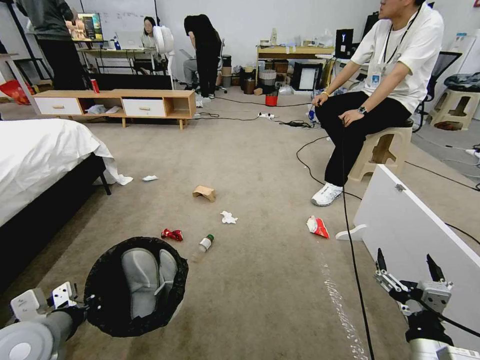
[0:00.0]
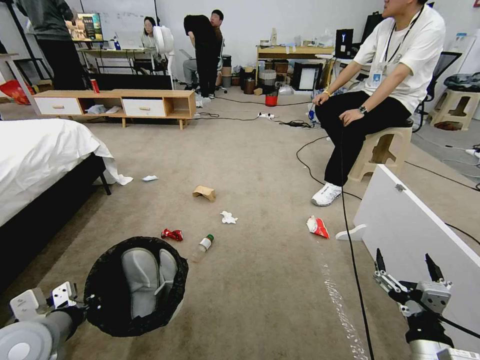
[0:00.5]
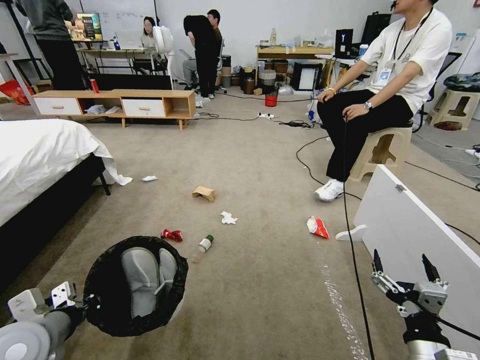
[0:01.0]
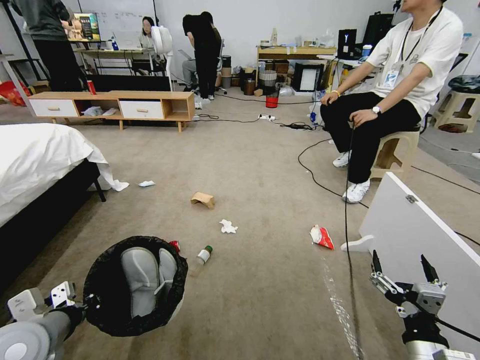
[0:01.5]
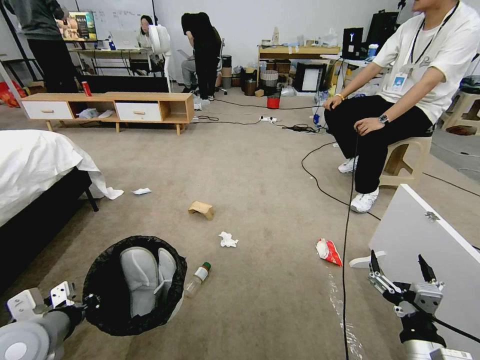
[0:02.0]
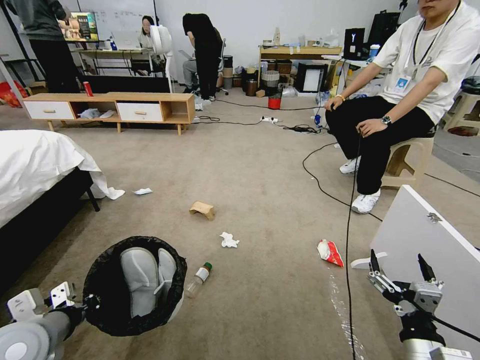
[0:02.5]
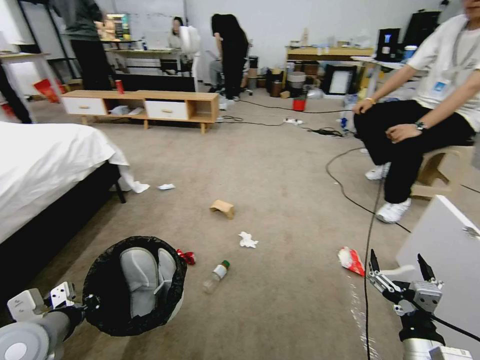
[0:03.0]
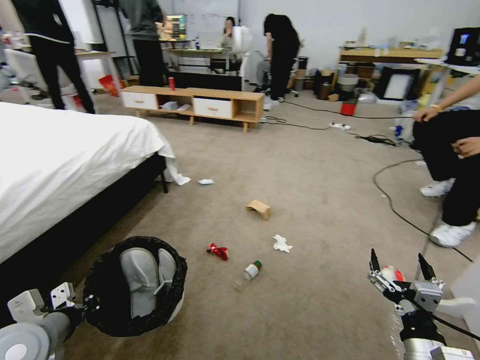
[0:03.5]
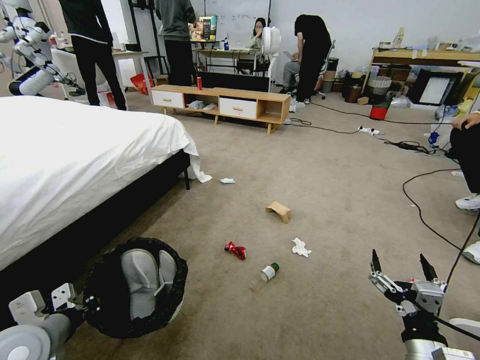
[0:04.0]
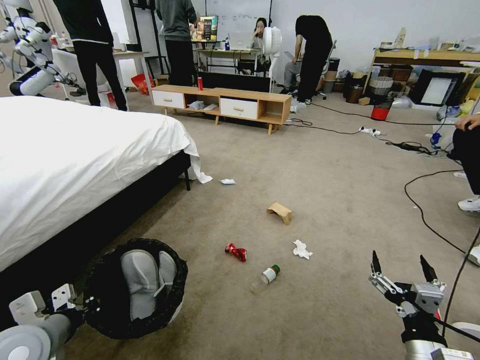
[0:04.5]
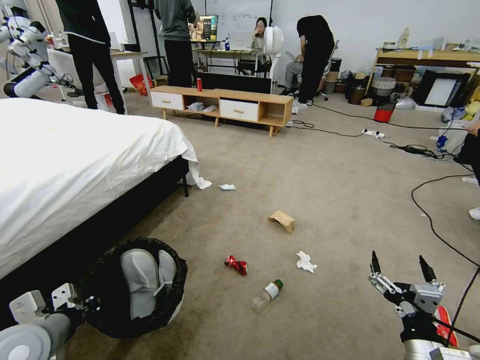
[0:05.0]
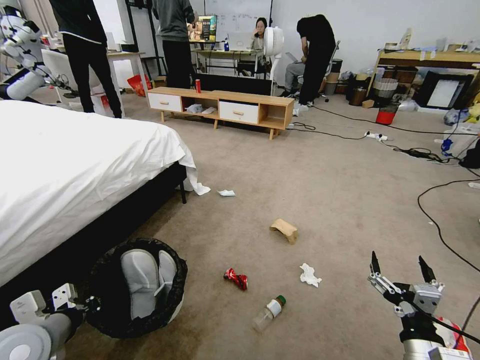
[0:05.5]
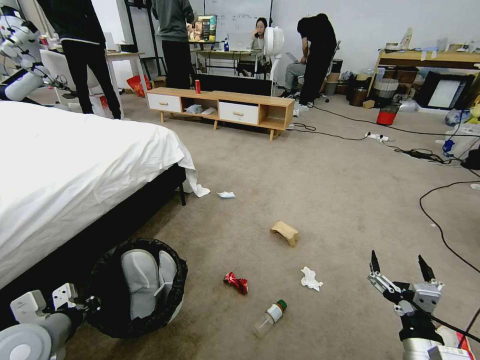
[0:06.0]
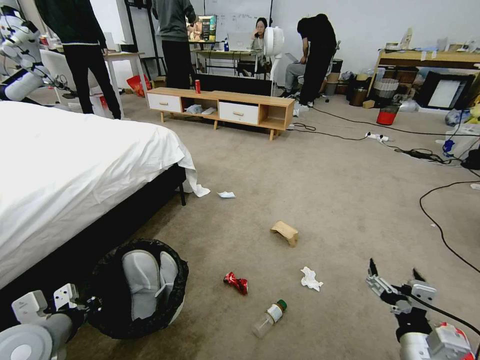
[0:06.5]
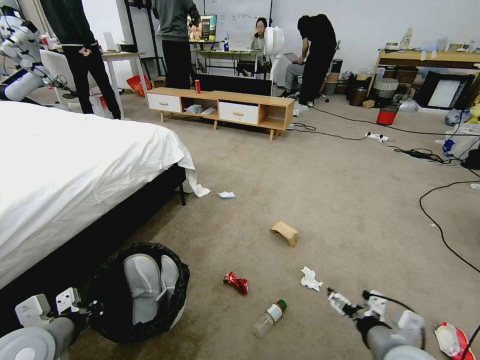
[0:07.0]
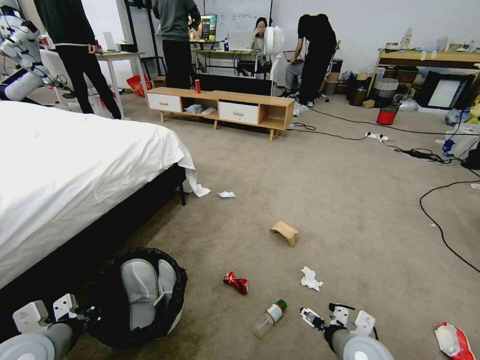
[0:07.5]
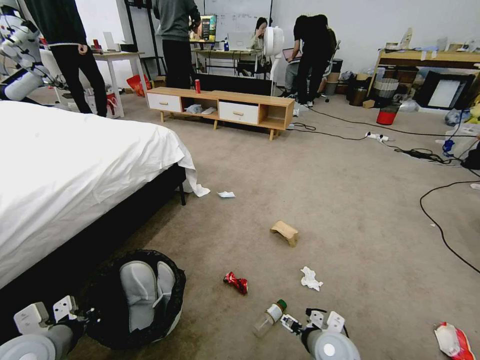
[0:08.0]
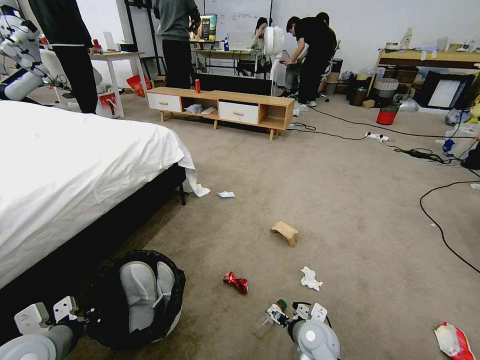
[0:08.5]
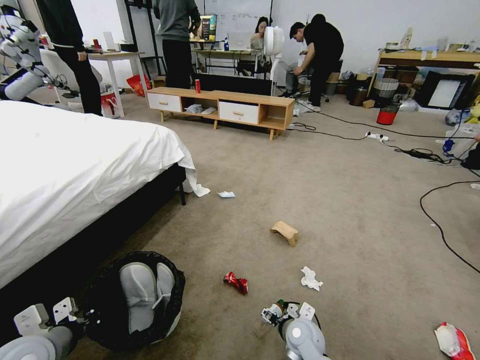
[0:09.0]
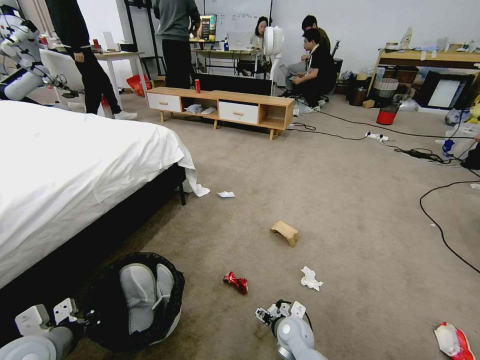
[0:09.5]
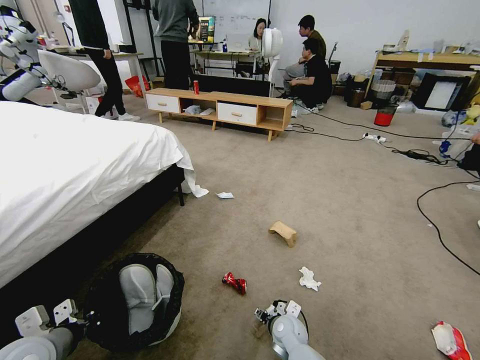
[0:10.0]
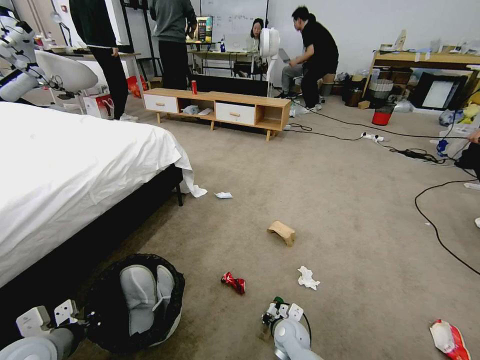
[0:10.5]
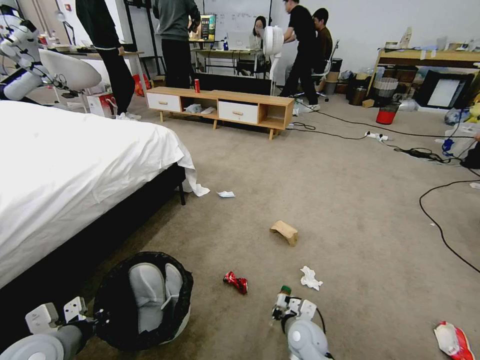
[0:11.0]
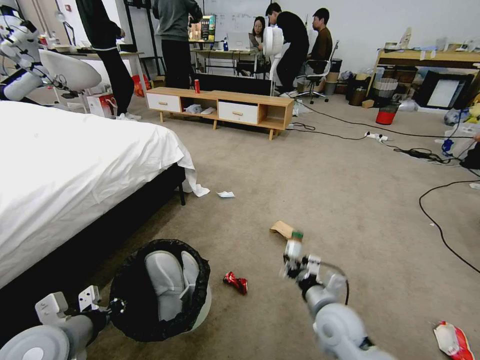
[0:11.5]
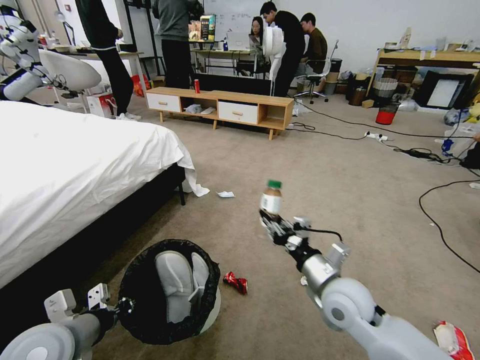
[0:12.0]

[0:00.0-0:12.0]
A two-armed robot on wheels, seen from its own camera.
Task of the whole recording: Pick up the trash bin and place the garbage on the floor into it.
0:06.0 to 0:08.0: The right gripper moves forward, downward and to the left, some 20 cm.
0:08.0 to 0:10.0: The right gripper moves downward, to the left and forward, about 15 cm.
0:10.0 to 0:12.0: The left gripper heads to the right, covering roughly 5 cm. Meanwhile the right gripper moves upward, approximately 25 cm, and closes up.

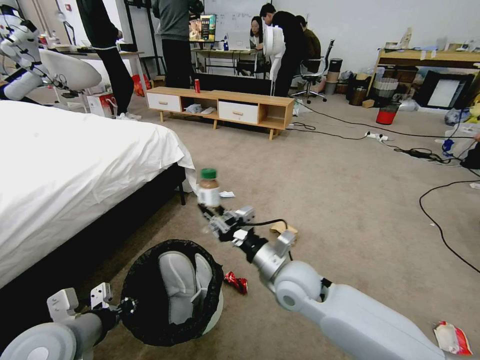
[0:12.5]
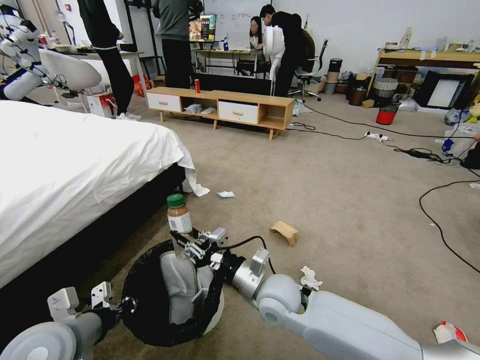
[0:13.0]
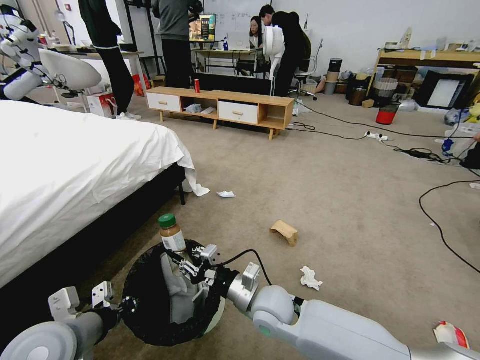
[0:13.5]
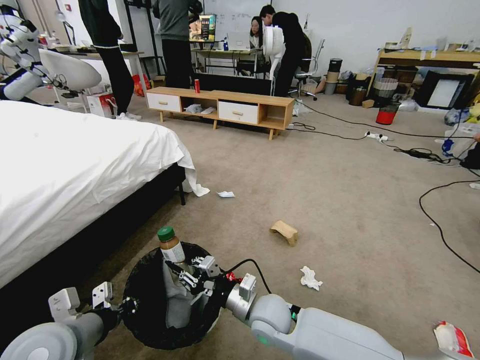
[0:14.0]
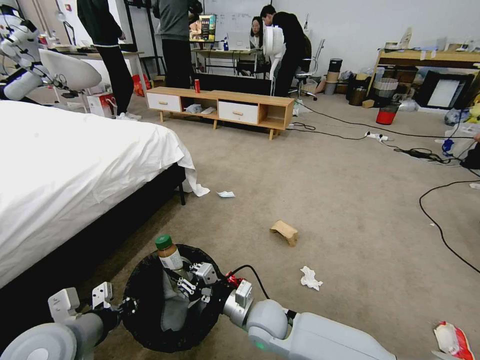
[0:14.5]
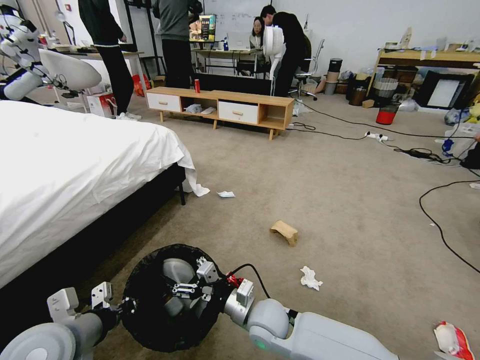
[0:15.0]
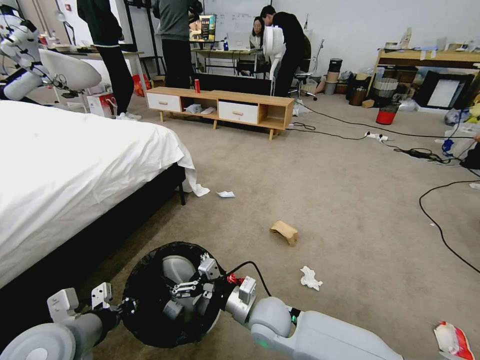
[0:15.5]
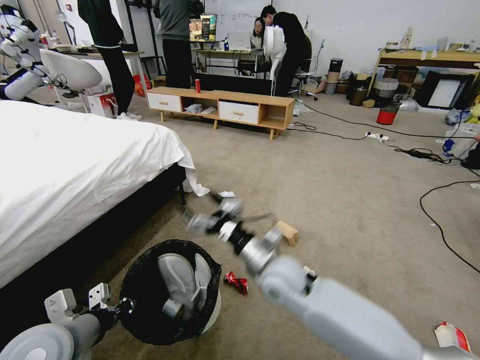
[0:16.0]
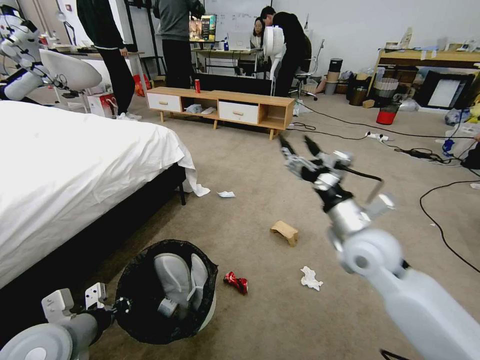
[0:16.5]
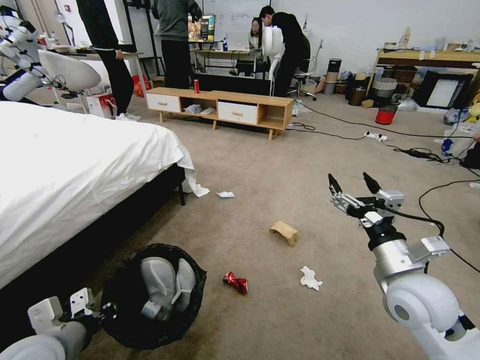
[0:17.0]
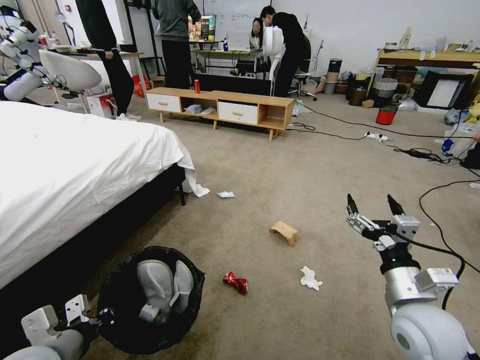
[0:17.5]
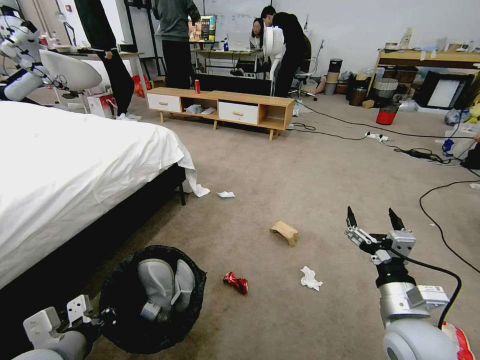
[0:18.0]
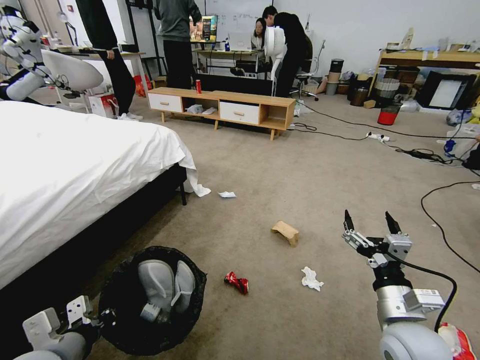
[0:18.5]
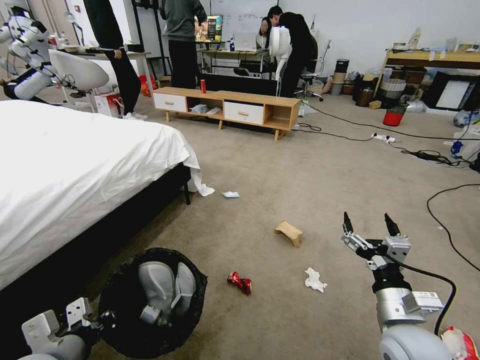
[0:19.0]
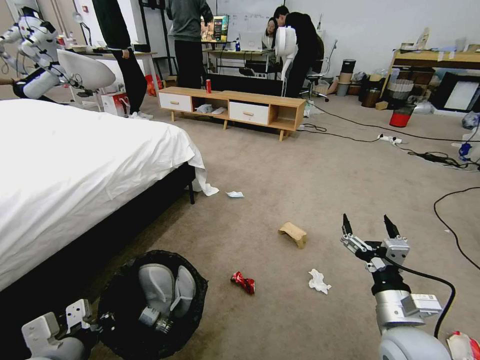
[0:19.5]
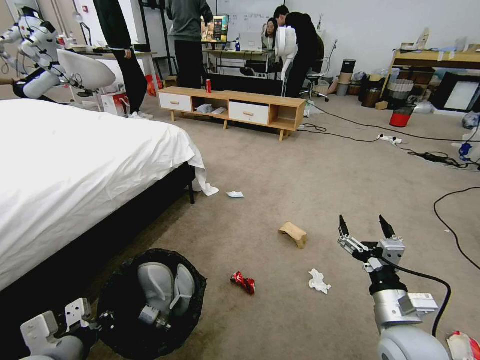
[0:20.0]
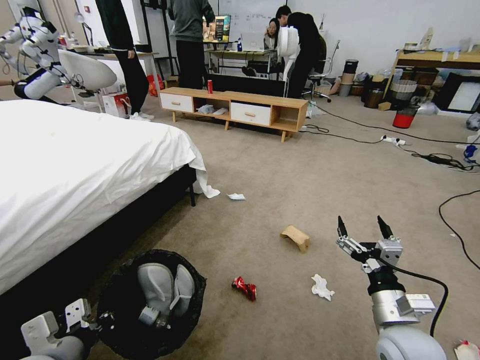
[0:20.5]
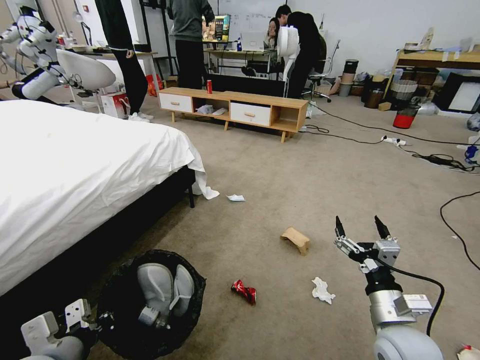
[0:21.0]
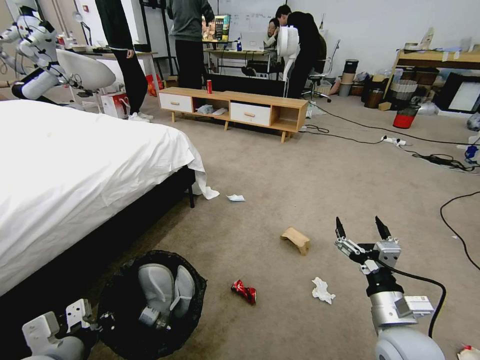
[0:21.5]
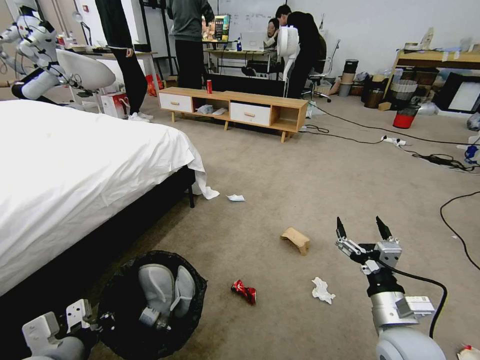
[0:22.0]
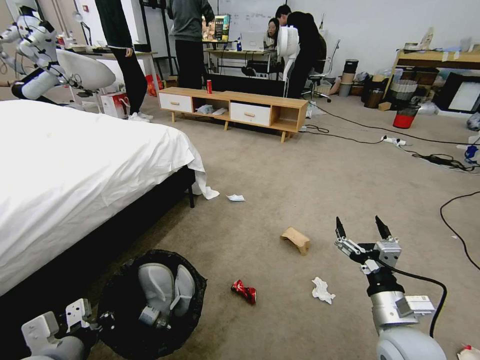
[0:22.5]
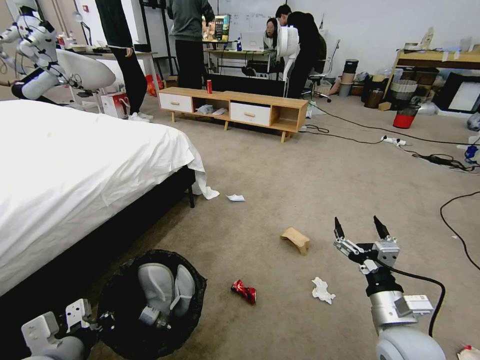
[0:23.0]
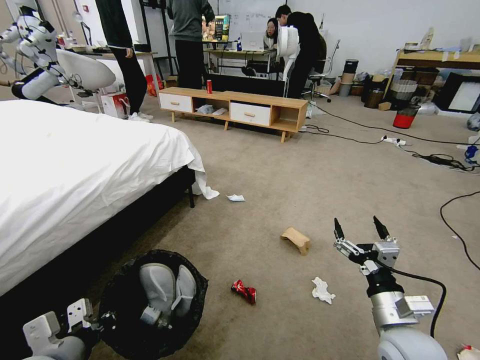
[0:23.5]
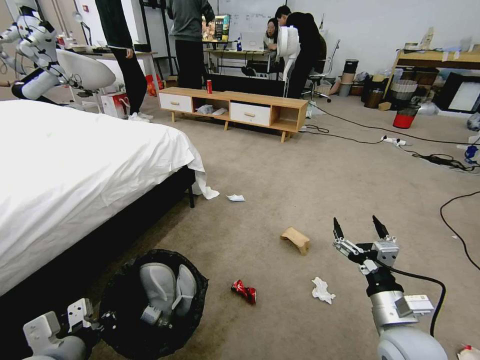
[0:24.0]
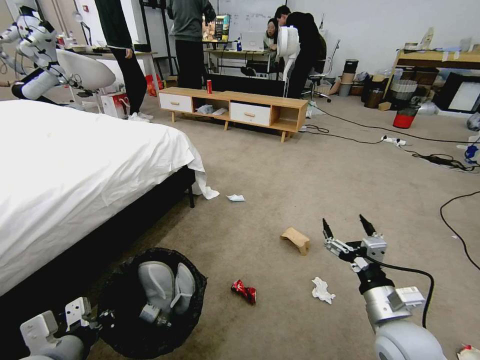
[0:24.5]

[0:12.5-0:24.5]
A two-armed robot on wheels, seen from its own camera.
Task of the whole recording: Pick up the trash bin and place the garbage on the floor into it.
0:12.5 to 0:14.5: The right gripper heads downward and to the left, covering approximately 15 cm.
0:14.5 to 0:16.5: The right gripper shifts approximately 30 cm upward and to the right, and opens up.
0:16.5 to 0:18.5: The right gripper heads backward, downward and to the right, covering about 20 cm.
0:20.5 to 0:22.5: The two grippers keep their place.
0:22.5 to 0:24.5: The grippers stay close to where they were, moving slightly.

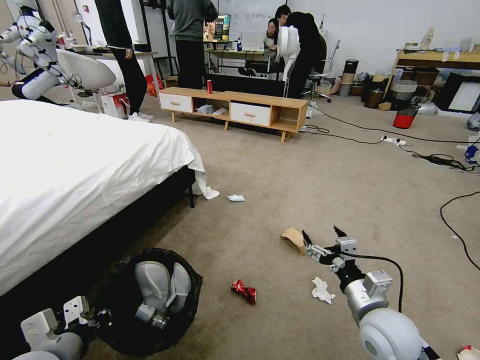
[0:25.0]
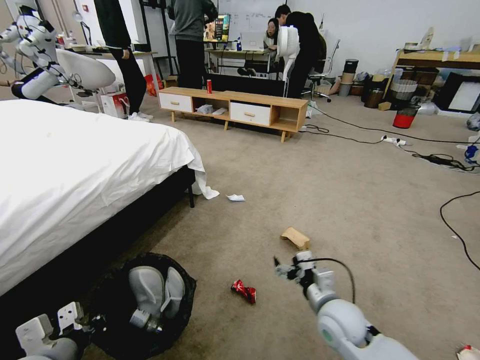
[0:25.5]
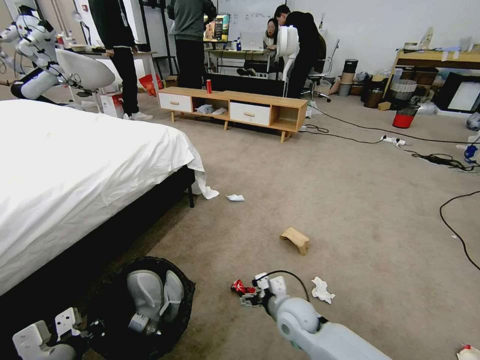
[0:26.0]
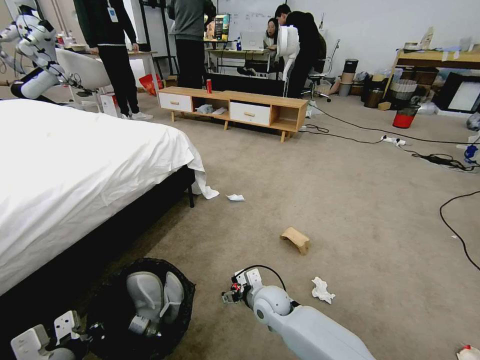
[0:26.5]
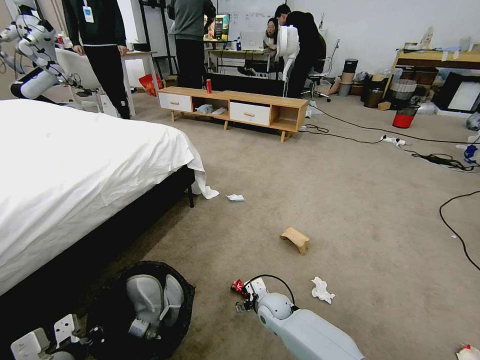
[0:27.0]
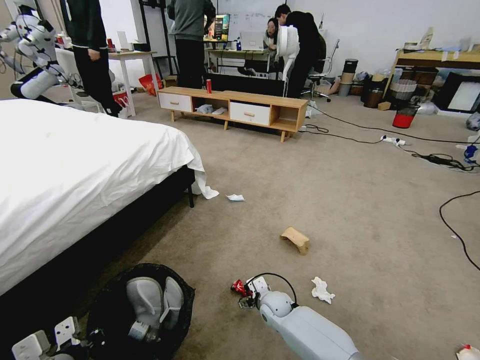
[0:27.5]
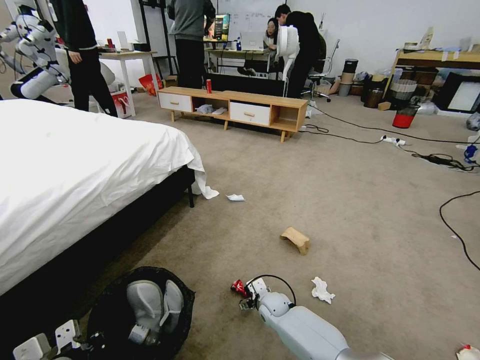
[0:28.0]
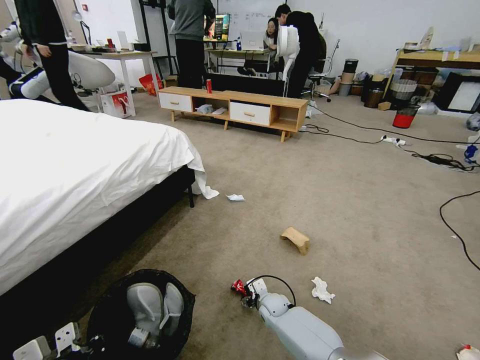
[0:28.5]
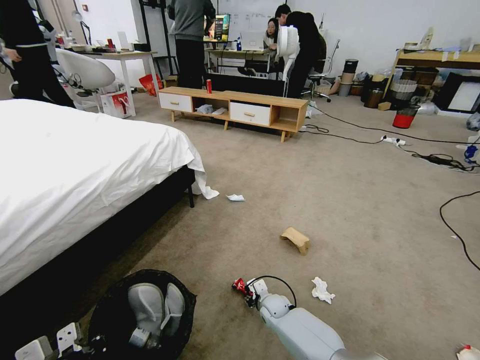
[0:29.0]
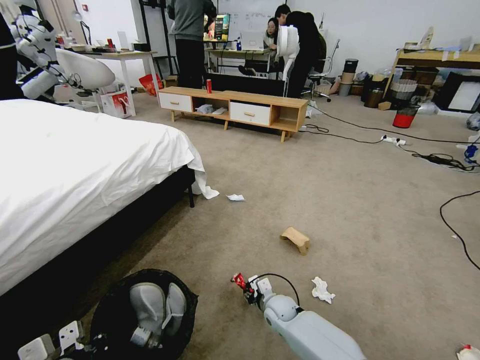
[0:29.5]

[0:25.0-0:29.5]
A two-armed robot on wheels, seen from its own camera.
Task of the whole recording: Pick up the trash bin and place the garbage on the floor into it.
0:25.0 to 0:27.0: The right gripper is displaced downward, to the left and forward by some 30 cm.
0:27.0 to 0:29.5: The right gripper closes its fingers.
